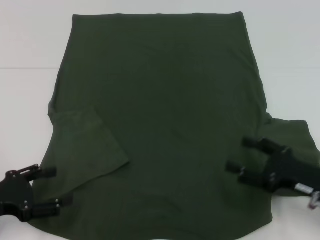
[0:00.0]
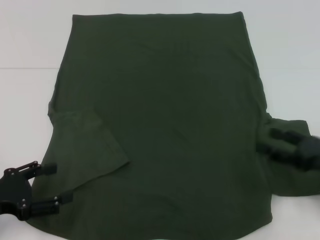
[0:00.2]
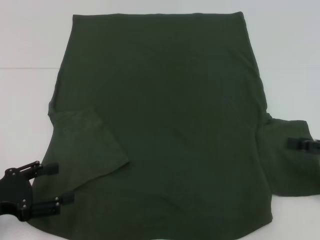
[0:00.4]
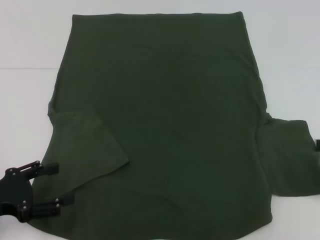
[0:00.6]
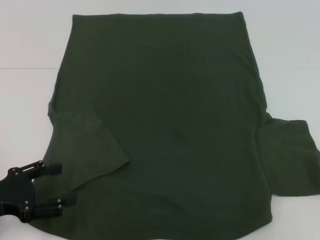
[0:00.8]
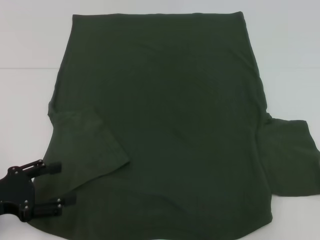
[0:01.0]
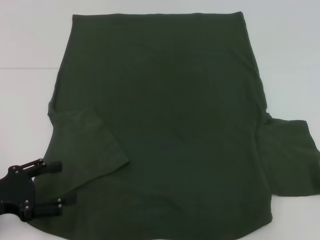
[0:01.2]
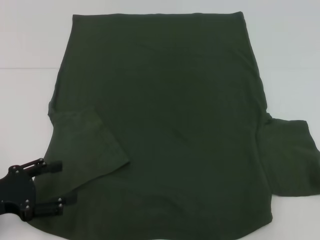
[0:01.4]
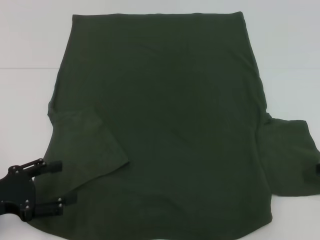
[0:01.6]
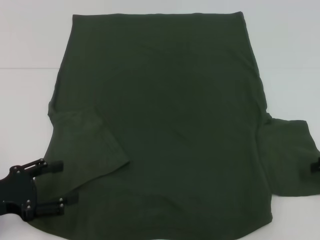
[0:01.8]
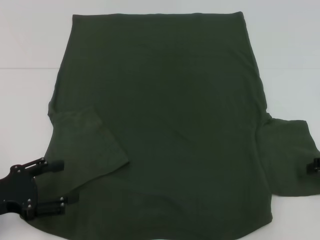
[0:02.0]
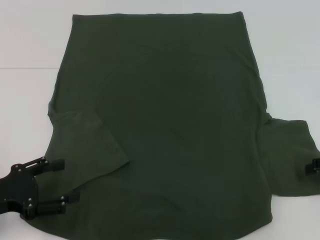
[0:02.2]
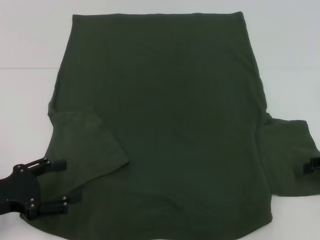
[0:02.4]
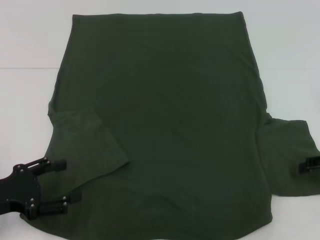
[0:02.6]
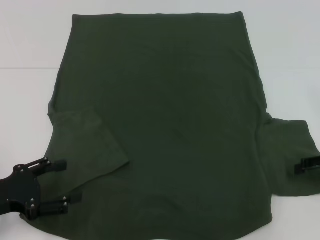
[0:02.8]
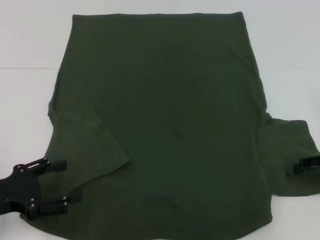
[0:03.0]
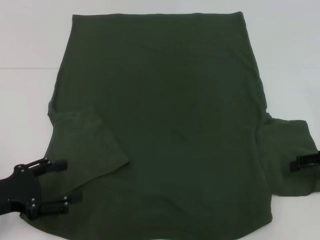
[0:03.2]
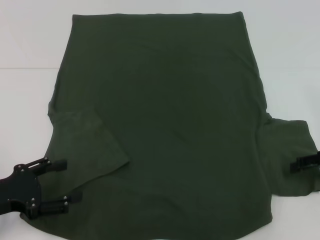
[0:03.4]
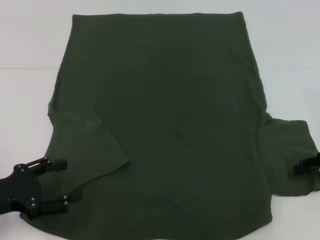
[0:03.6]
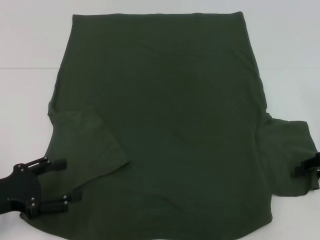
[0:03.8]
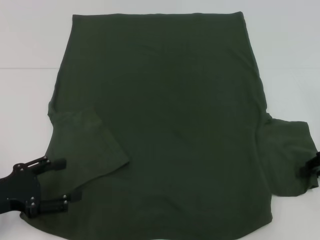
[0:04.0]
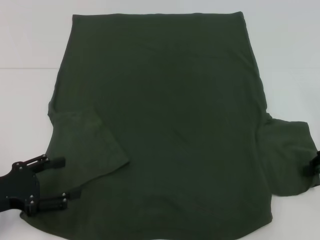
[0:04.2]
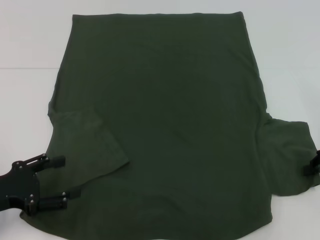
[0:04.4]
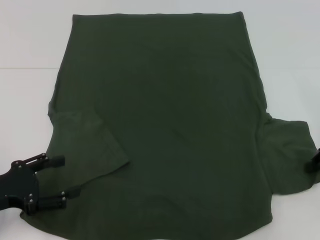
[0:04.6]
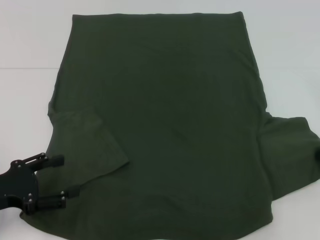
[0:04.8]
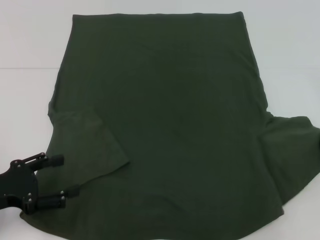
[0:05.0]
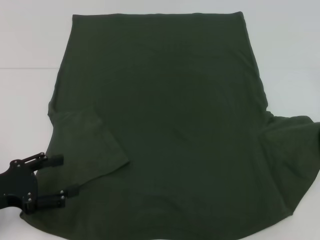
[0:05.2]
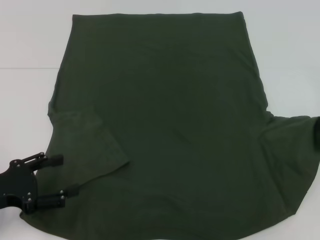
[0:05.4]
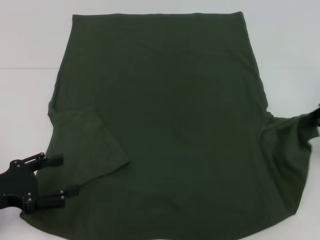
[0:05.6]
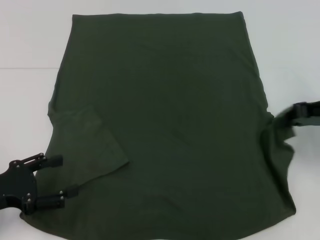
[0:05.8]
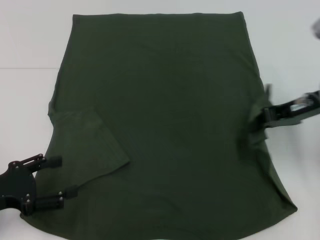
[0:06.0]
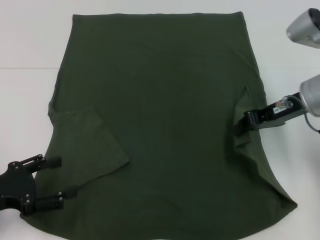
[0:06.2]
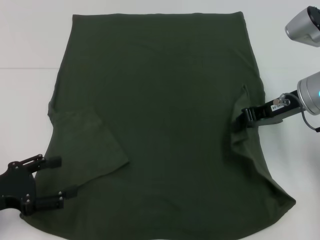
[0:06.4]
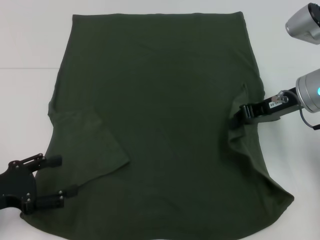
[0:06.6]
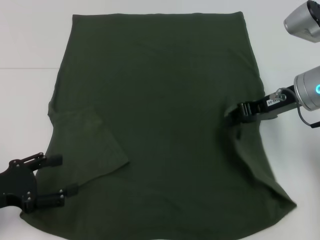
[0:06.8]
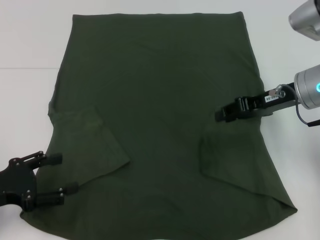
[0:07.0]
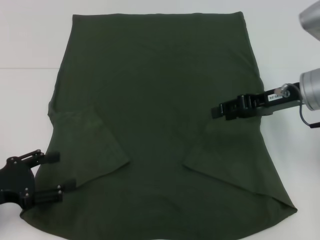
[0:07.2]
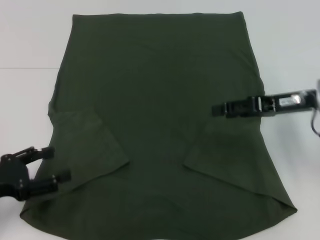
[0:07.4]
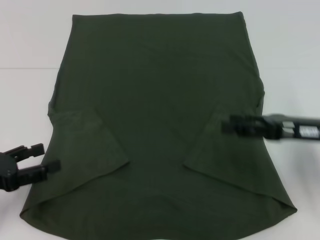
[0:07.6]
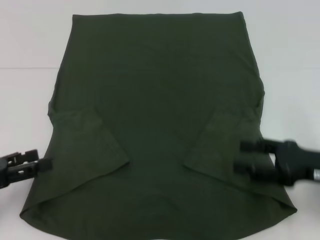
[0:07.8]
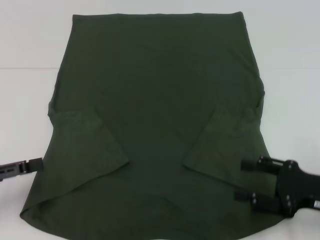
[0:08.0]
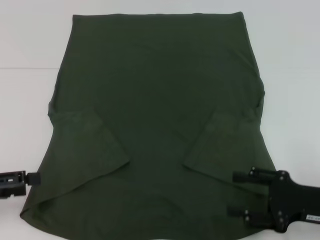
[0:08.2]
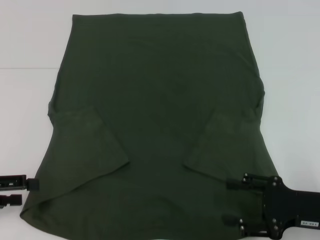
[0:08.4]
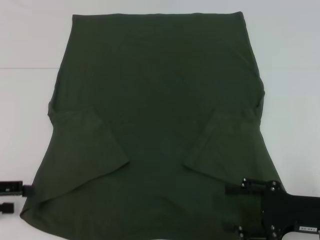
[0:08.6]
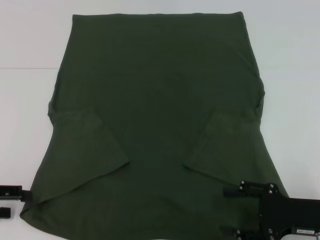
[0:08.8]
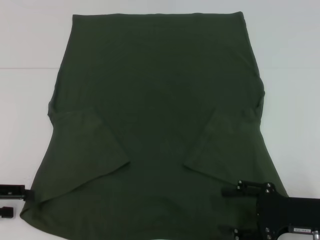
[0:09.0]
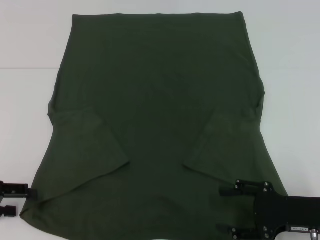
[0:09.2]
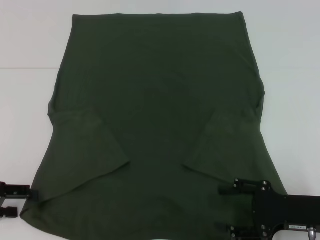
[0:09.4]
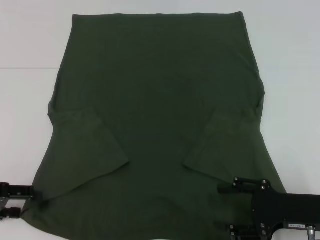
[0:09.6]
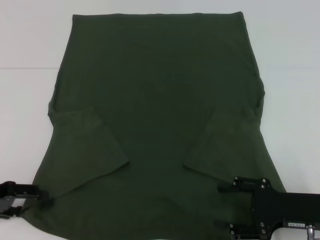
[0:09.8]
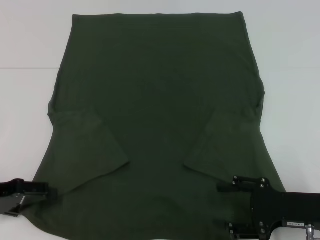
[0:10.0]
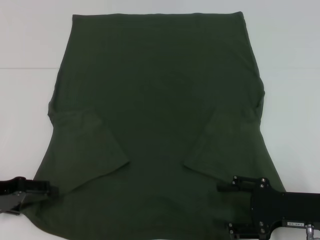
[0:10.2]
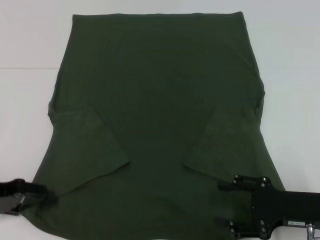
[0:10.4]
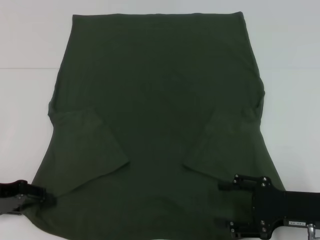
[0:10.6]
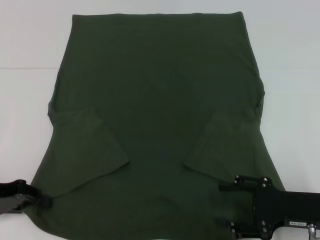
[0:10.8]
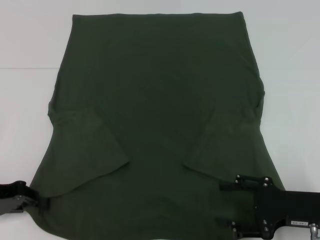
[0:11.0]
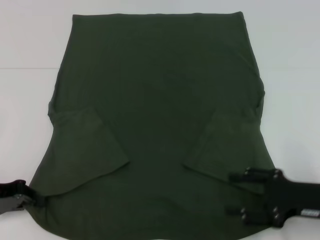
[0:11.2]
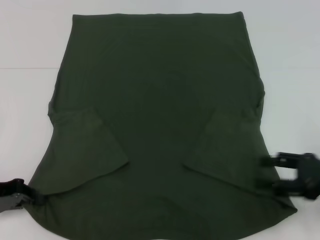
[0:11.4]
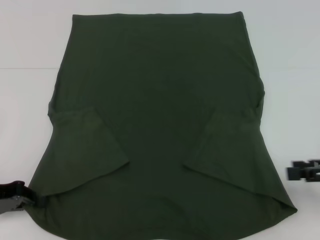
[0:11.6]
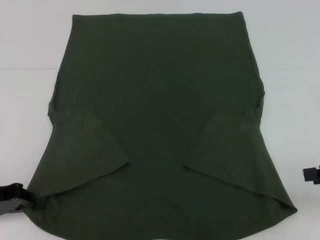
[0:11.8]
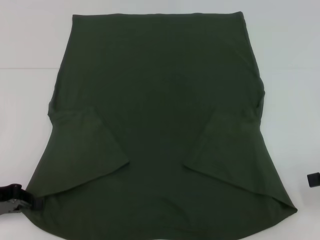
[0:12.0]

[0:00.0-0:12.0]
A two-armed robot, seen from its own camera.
Step, 0:00.0 to 0:07.2: Fold the bottom right sleeve with your right hand.
Step, 0:07.4 to 0:11.4: Grab the bottom left corner with your left hand.
0:00.0 to 0:01.6: The right gripper travels to the right, upward and forward by approximately 15 cm.
0:01.6 to 0:03.0: There are only small adjustments of the grippers.
0:04.4 to 0:06.0: The right gripper shifts approximately 10 cm to the left and upward.
0:06.0 to 0:07.6: The right gripper is displaced backward by about 5 cm, and opens its fingers.
0:07.6 to 0:09.0: The right gripper is displaced backward and downward by about 10 cm.
0:09.0 to 0:10.4: The grippers move only a little.
0:10.4 to 0:12.0: The left gripper closes up. The right gripper travels to the right and upward by roughly 15 cm.

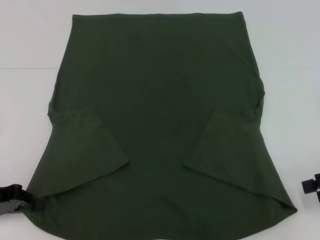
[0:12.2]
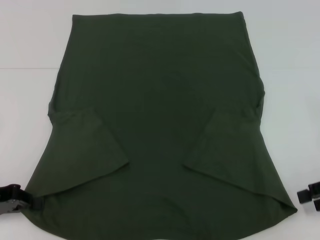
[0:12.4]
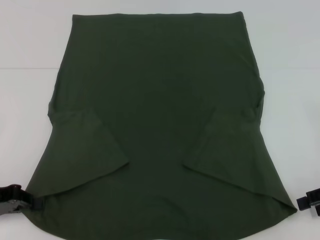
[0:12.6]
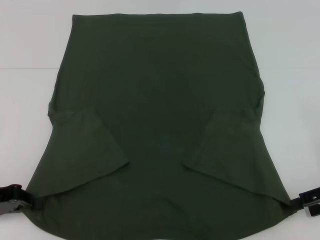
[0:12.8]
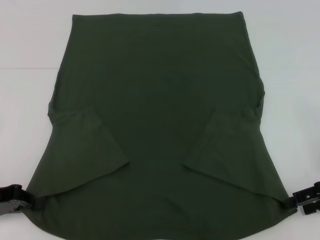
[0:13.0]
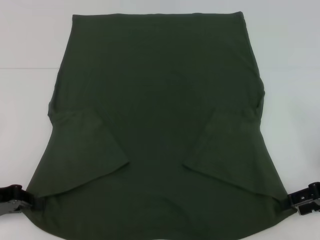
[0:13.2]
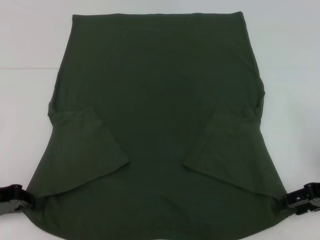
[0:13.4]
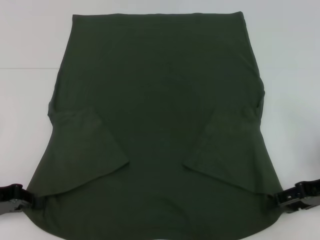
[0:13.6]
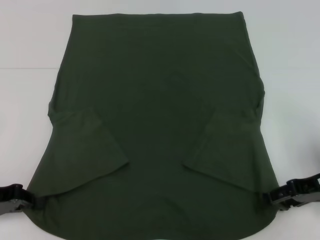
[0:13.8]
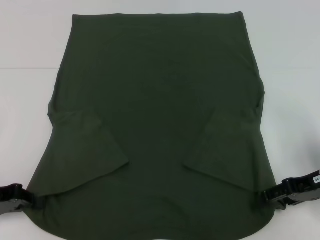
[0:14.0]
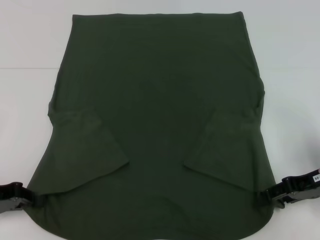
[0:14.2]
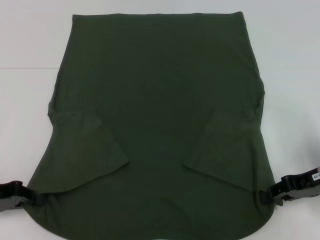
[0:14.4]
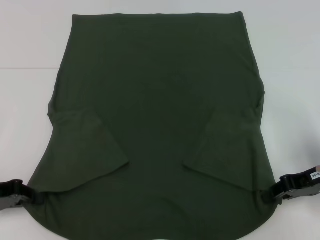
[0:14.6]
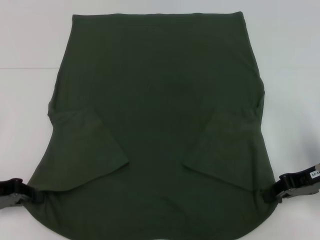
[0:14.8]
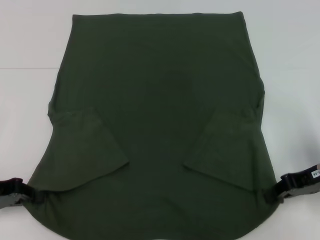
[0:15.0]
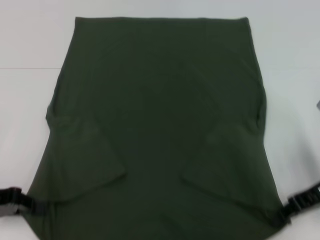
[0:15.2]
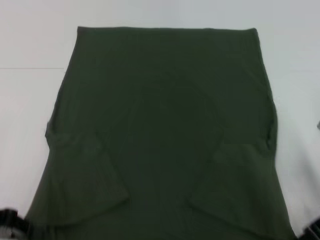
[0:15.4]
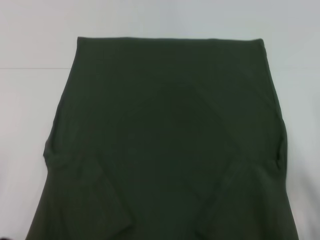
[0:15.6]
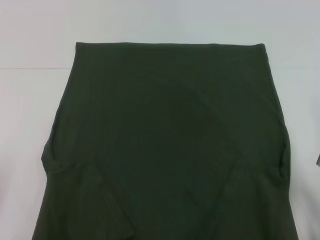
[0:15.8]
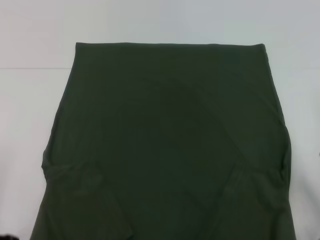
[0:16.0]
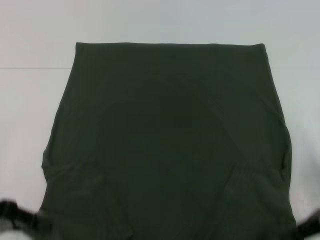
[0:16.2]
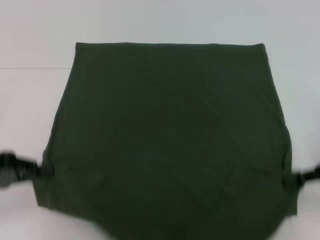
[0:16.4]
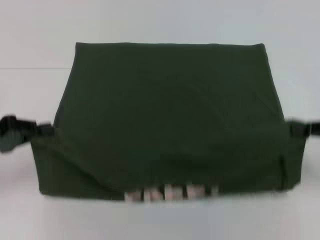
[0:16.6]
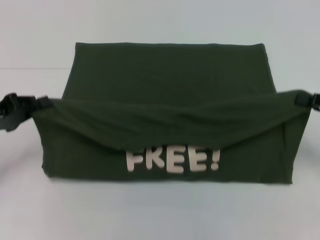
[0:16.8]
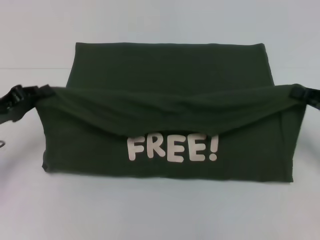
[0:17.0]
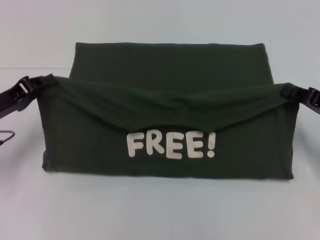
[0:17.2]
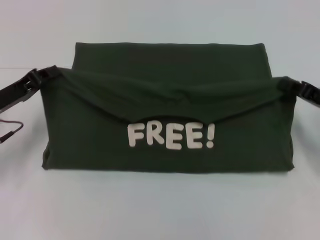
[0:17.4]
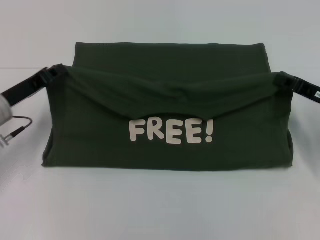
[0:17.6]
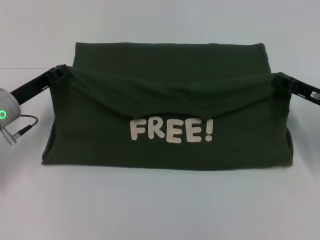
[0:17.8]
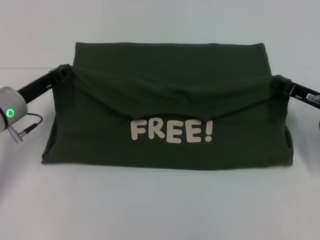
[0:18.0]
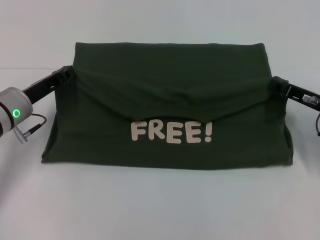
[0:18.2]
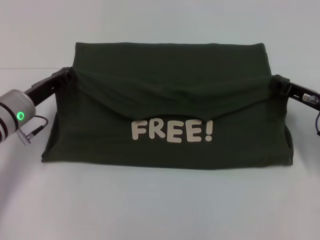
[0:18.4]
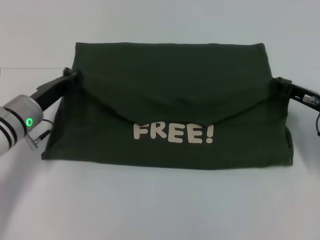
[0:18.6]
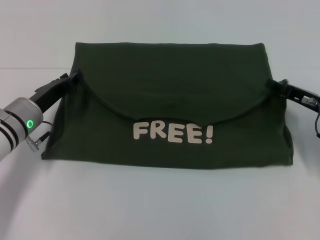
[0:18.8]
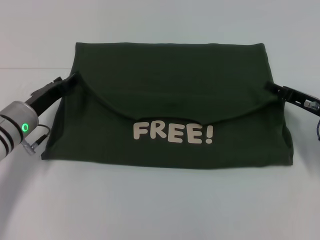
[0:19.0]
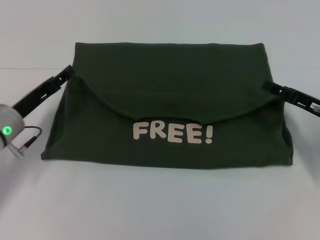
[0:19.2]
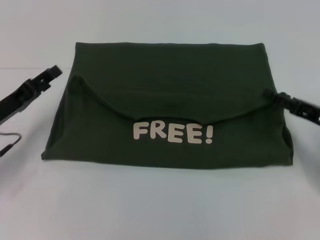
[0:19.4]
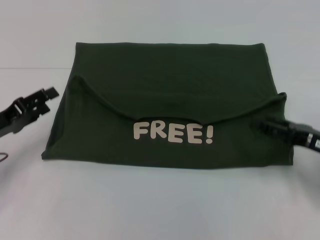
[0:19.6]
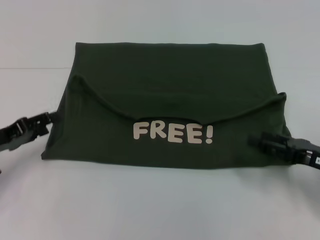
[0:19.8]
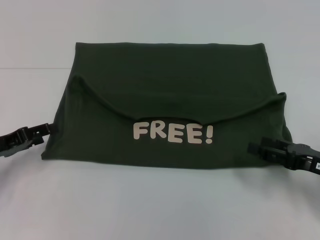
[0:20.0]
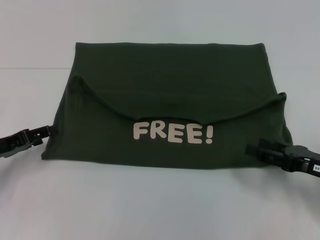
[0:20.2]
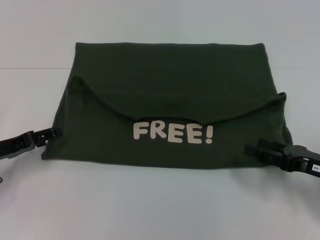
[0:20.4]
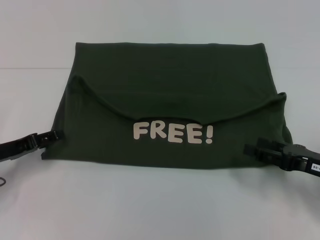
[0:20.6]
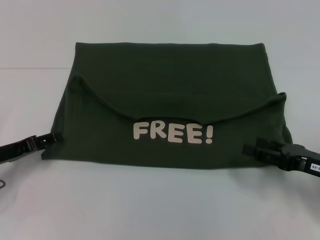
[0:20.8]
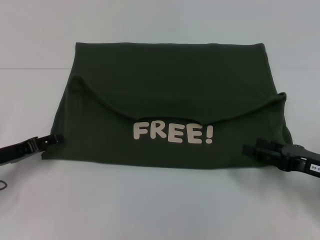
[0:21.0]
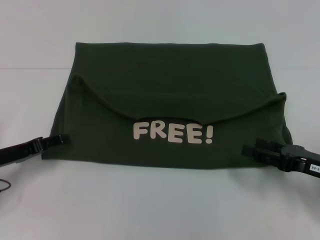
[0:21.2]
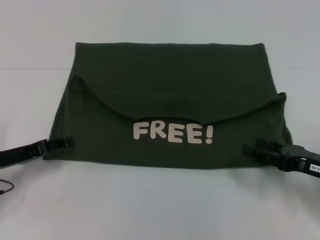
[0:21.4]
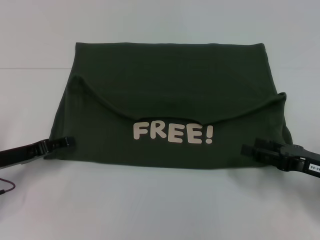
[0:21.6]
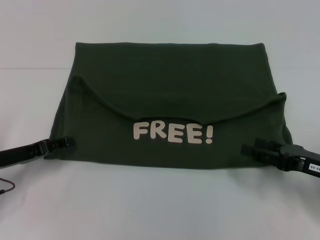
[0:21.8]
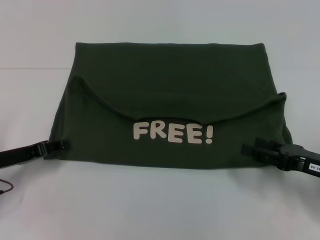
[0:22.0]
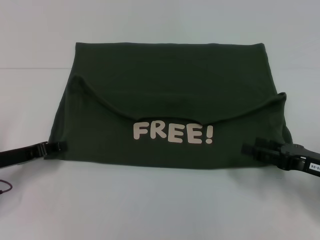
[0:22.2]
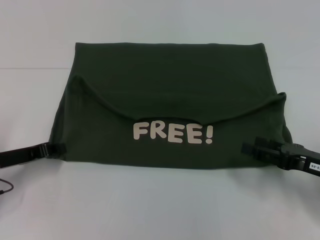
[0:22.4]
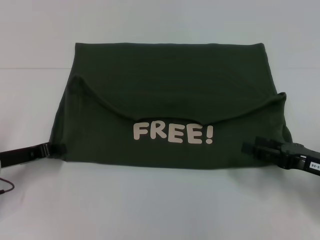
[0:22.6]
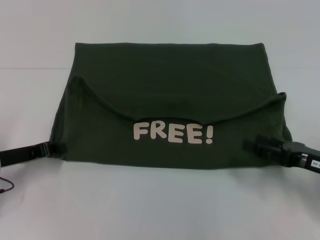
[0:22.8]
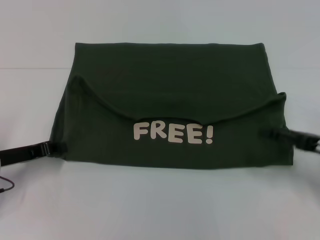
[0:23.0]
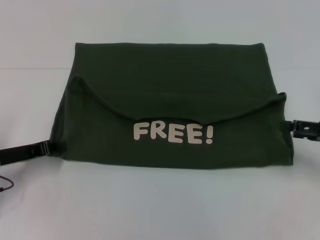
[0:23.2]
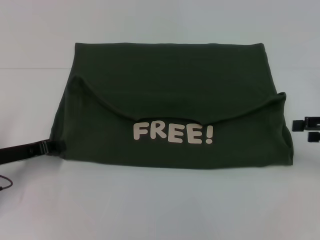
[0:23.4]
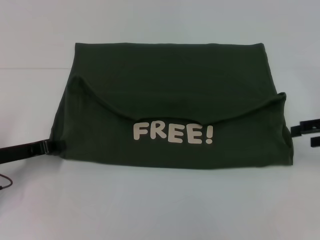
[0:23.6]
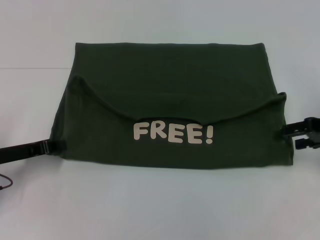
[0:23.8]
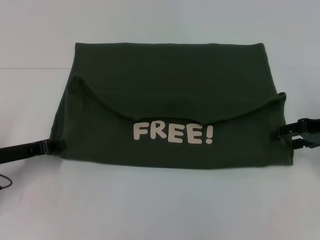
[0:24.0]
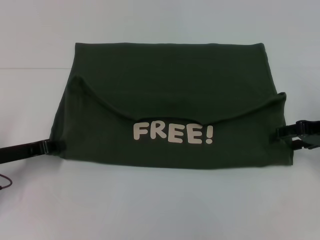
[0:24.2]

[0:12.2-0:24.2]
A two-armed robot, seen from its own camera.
Step, 0:12.2 to 0:14.8: Grab the bottom right corner with your right hand.
Step, 0:15.0 to 0:19.2: Fold the clothes with your left hand.
Step, 0:15.0 to 0:19.2: Fold the clothes with your right hand.
0:12.2 to 0:13.8: The right gripper is displaced to the left by approximately 5 cm.
0:13.8 to 0:15.2: The right gripper closes up.
0:15.2 to 0:16.6: The right gripper is displaced to the right by some 5 cm.
0:16.6 to 0:18.2: The right gripper shifts approximately 10 cm downward, forward and to the left. The left gripper shifts roughly 10 cm to the right and forward.
0:18.2 to 0:19.8: The left gripper heads backward and to the left, covering approximately 10 cm, and opens, while the right gripper goes about 10 cm backward, and opens its fingers.
0:19.8 to 0:21.2: The grippers make only small movements.
0:21.2 to 0:22.6: The left gripper closes its fingers.
0:22.6 to 0:24.2: The right gripper shifts some 10 cm forward and upward.
